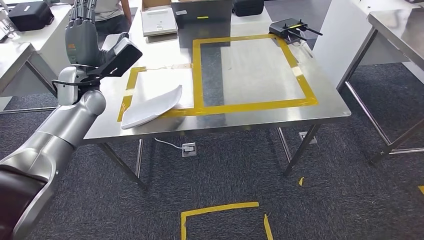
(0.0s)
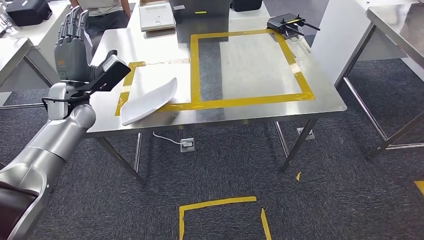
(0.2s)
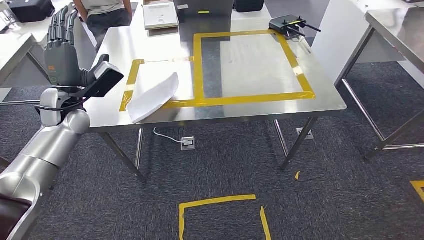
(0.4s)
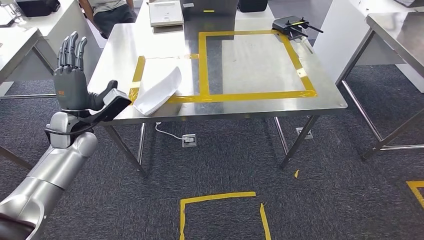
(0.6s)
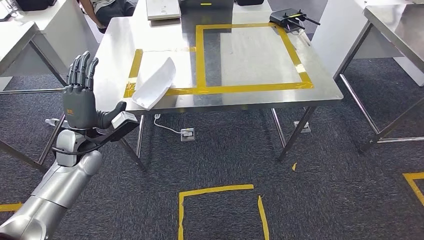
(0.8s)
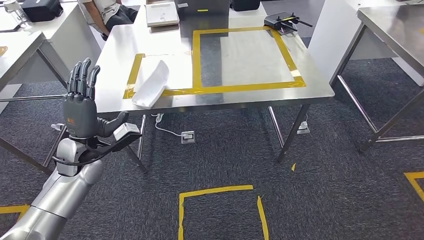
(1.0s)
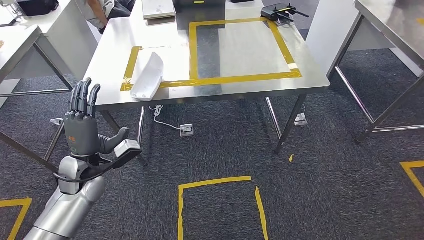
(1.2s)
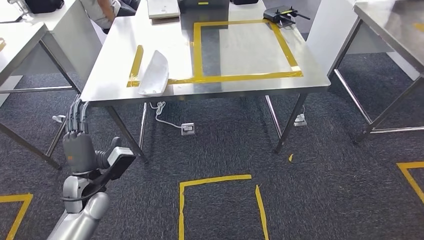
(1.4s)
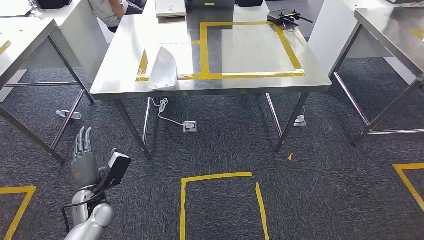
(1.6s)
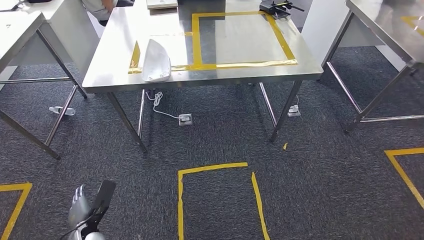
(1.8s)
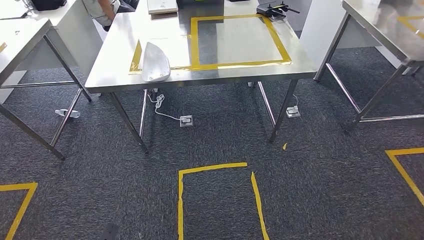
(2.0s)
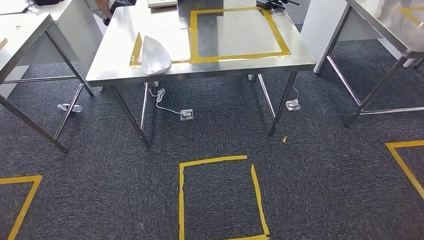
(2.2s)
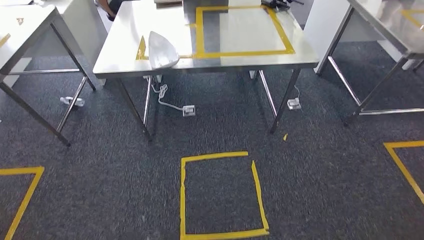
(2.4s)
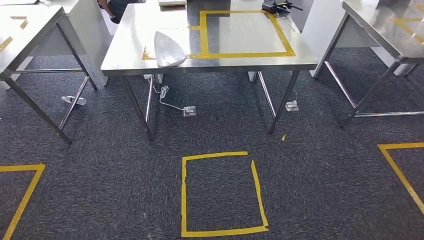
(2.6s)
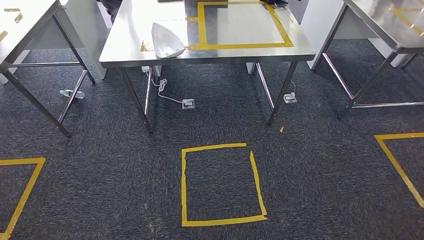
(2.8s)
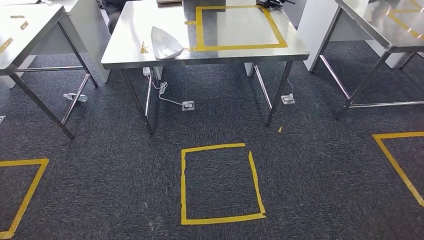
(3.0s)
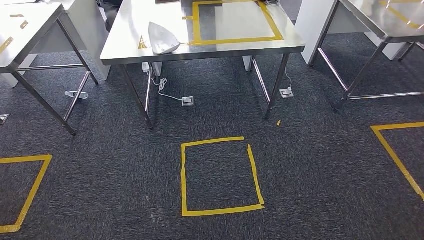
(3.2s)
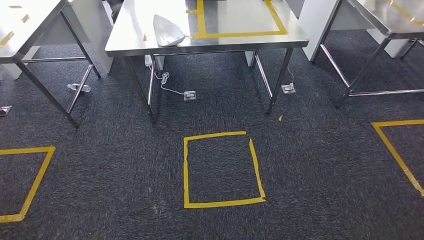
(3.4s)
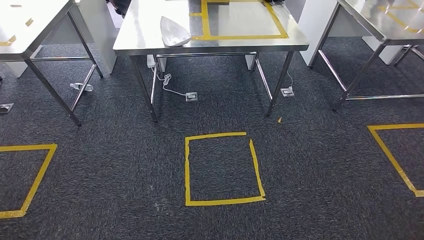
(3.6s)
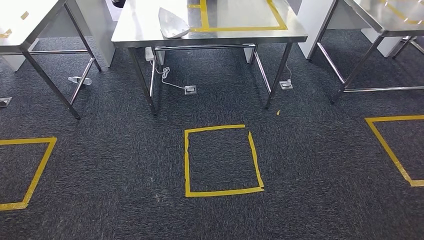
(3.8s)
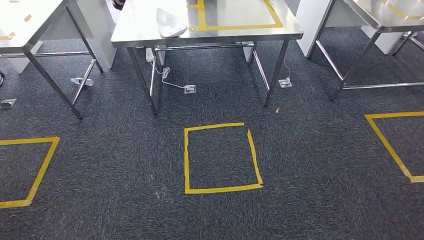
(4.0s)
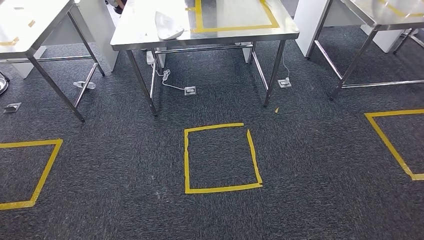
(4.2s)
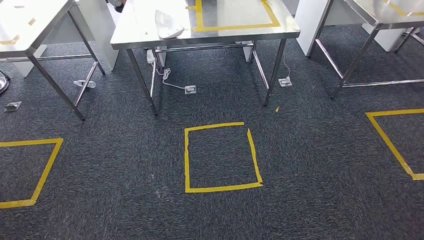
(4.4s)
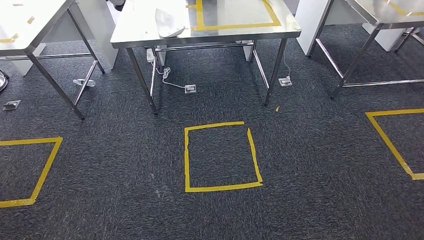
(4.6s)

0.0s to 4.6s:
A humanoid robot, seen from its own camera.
Step, 0.0s to 4.6s: Return to the initial position at the workbench.

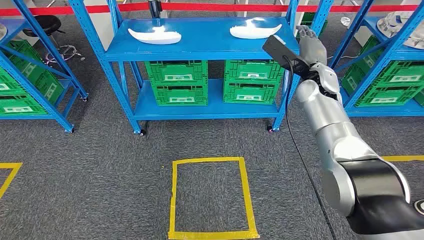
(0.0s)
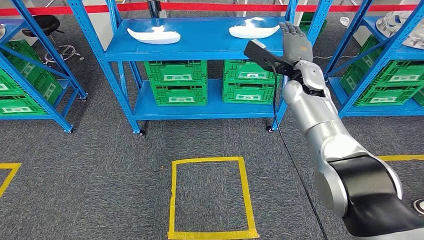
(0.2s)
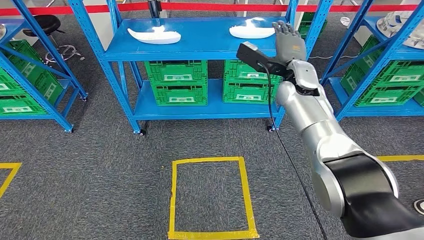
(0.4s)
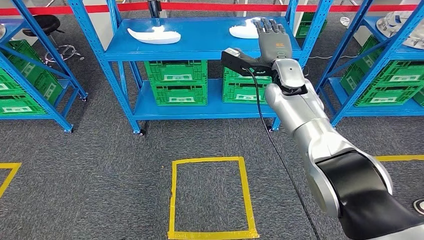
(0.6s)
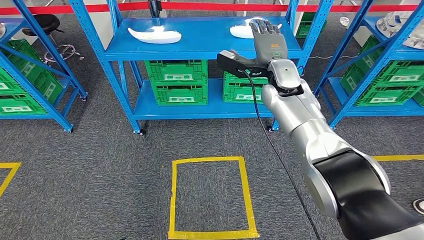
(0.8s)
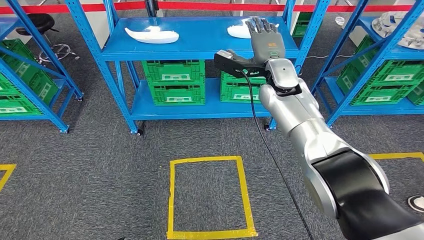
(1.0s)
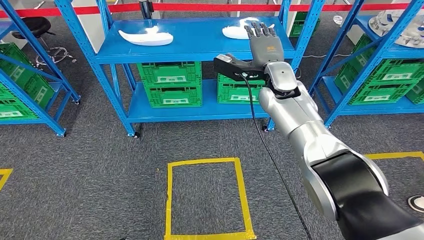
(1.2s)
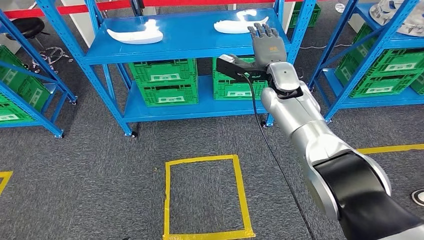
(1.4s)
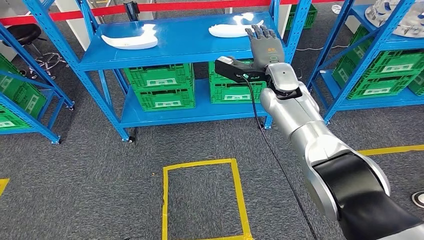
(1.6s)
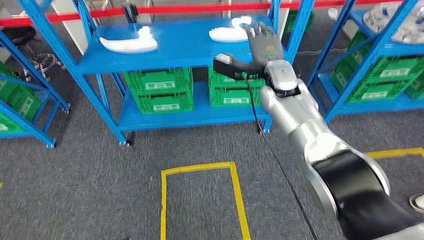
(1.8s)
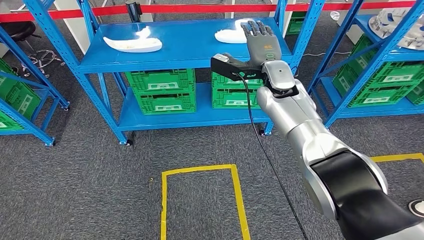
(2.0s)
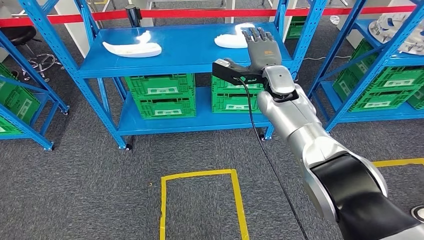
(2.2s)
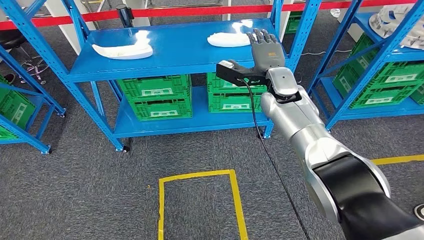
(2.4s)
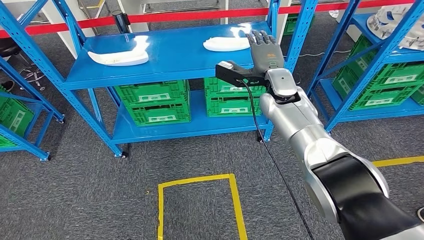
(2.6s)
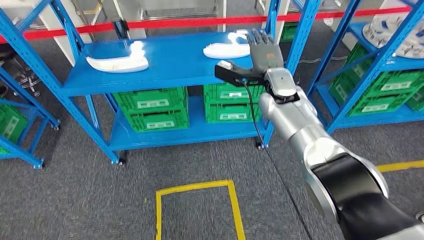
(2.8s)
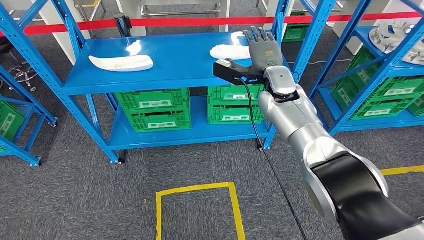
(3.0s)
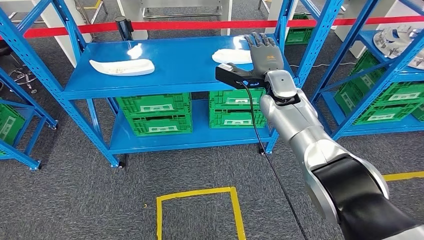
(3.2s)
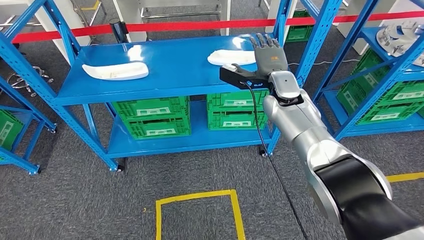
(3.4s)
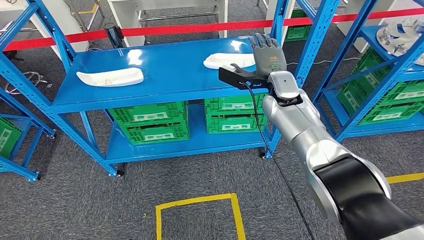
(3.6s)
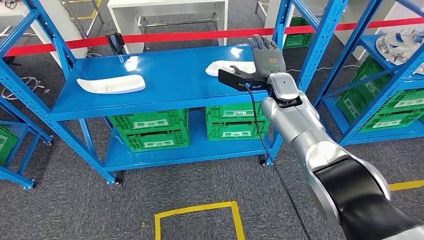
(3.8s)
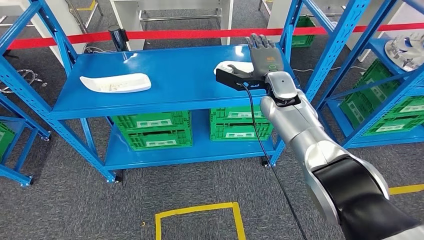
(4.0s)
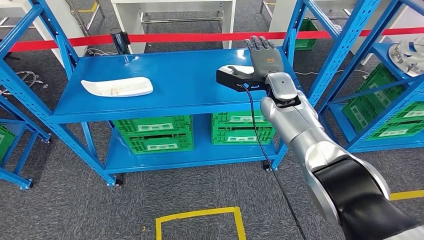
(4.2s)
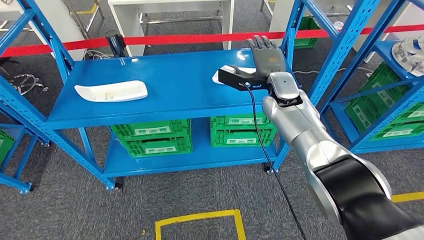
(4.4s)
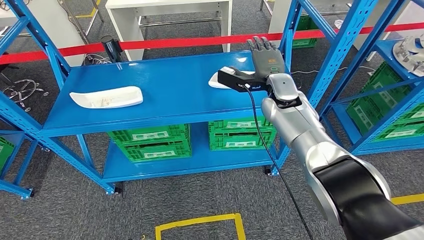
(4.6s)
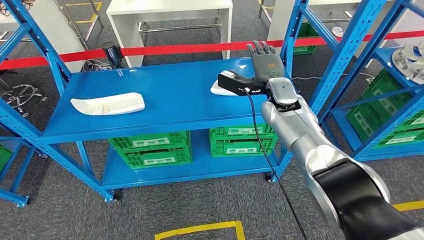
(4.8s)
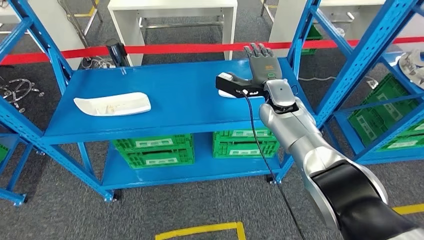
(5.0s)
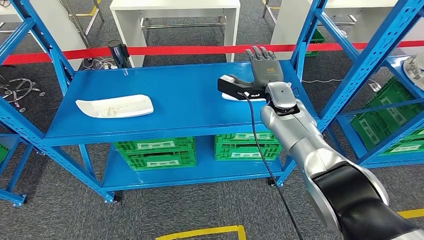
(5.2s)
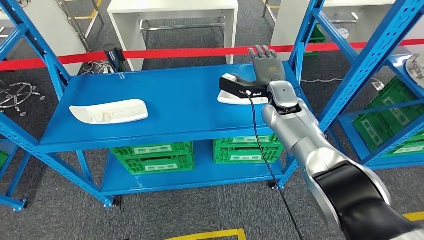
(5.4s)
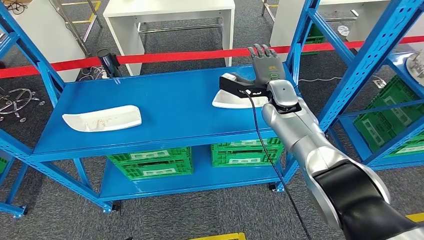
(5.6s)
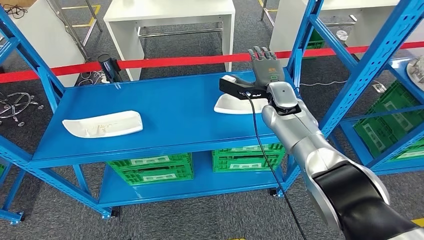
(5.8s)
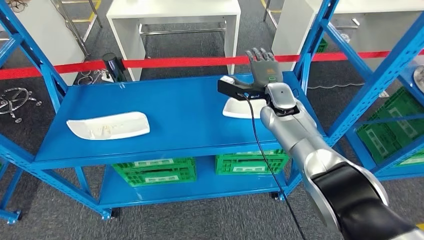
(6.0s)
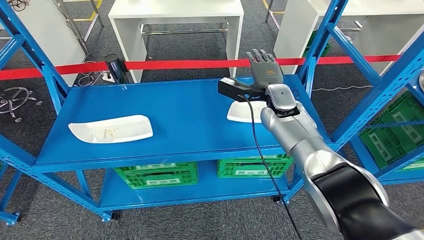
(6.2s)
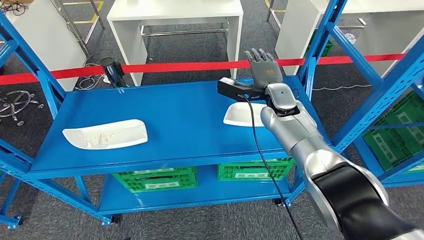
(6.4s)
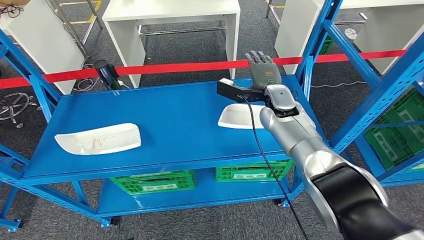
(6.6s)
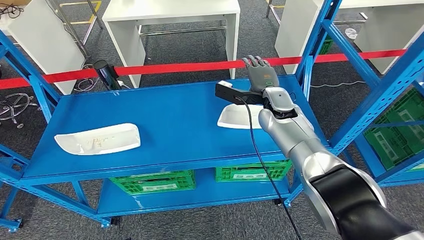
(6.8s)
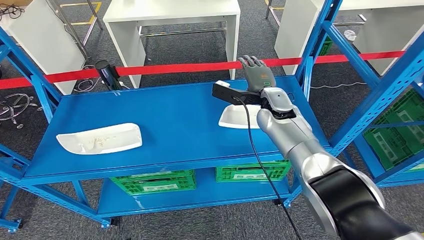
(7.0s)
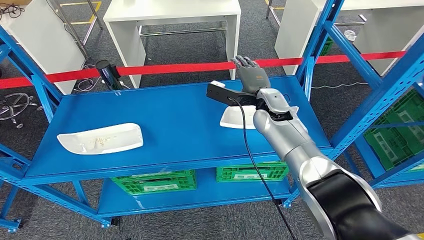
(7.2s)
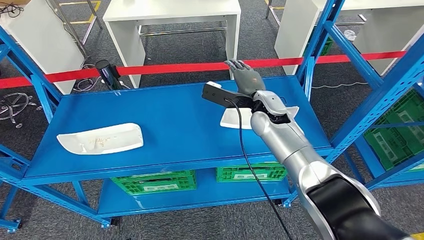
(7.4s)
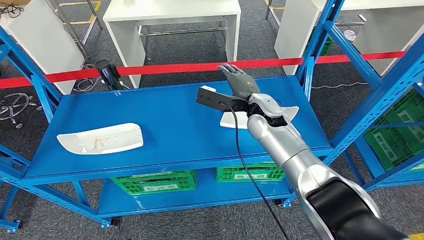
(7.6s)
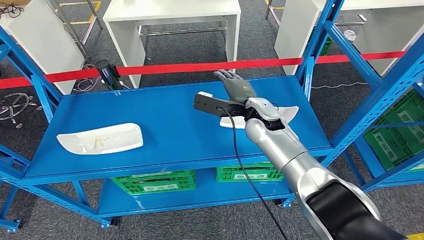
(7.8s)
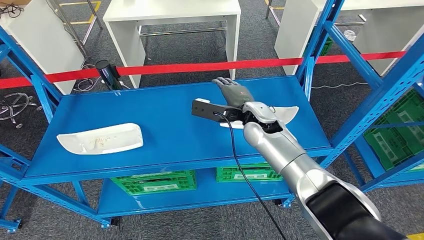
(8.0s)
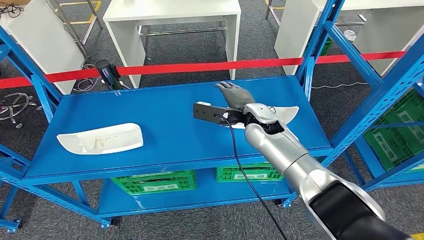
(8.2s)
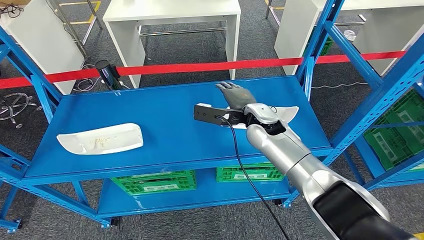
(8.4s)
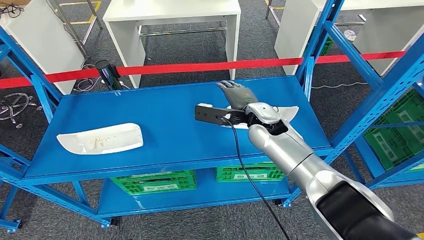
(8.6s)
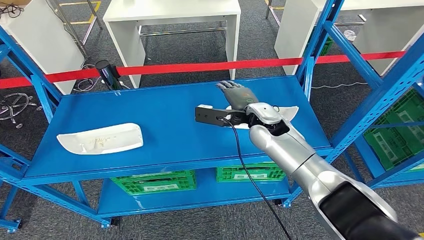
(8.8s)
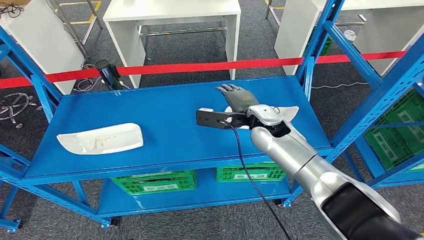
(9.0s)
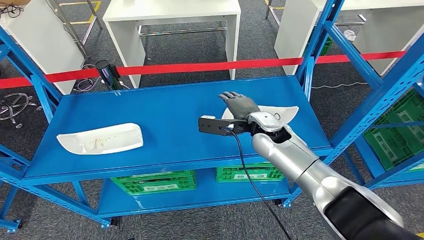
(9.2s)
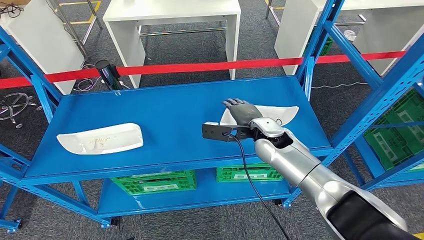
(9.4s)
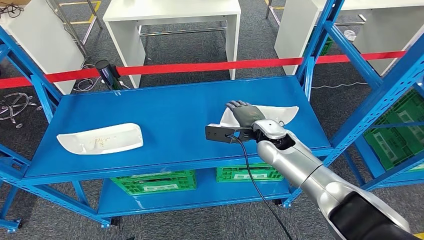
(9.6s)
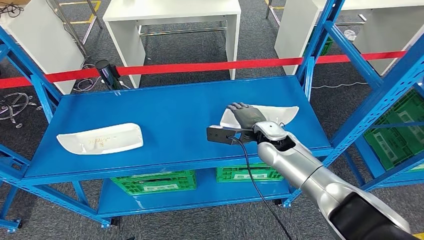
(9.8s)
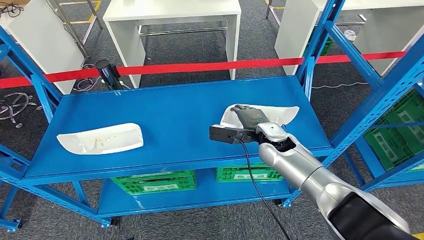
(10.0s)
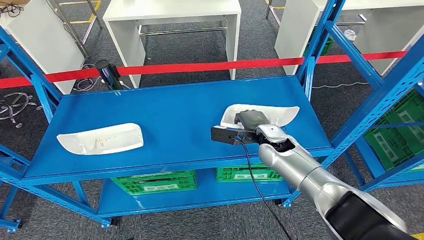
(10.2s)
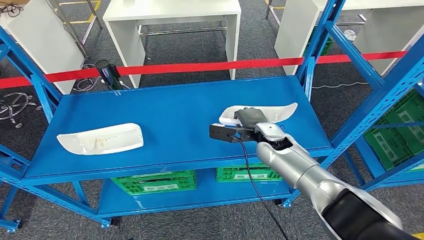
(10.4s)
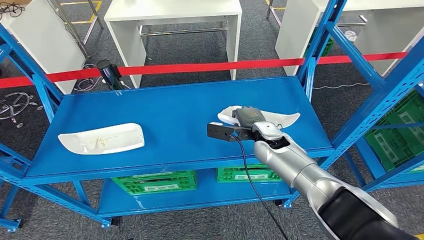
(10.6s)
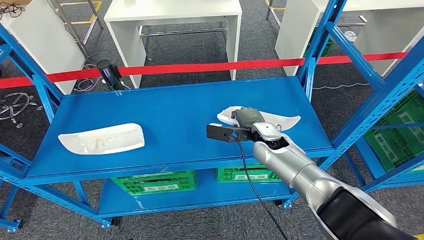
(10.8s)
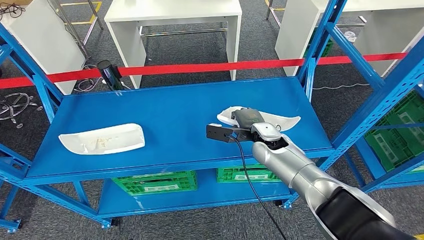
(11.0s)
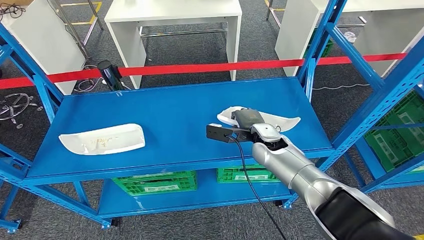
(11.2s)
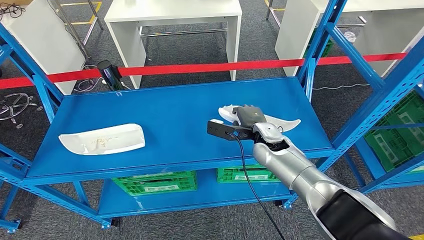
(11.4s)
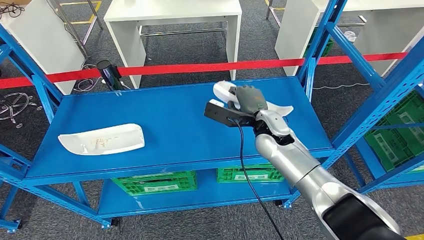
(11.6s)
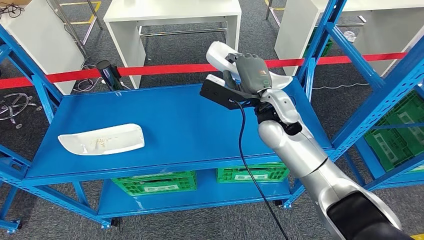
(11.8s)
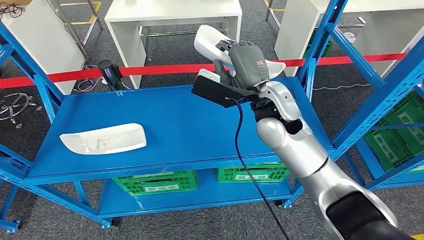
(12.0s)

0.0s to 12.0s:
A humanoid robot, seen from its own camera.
7.6s to 9.0s: There are only small adjustments of the hands.
9.0s to 10.4s: The right hand heads downward, covering some 5 cm.
10.4s to 12.0s: The right hand travels upward and to the left by some 15 cm.
